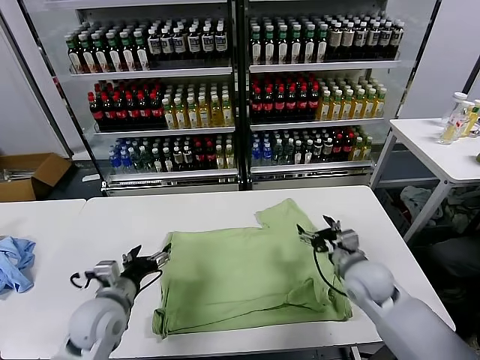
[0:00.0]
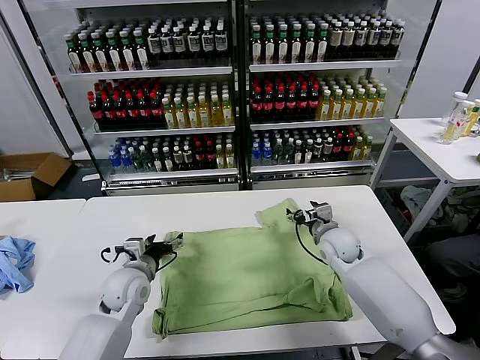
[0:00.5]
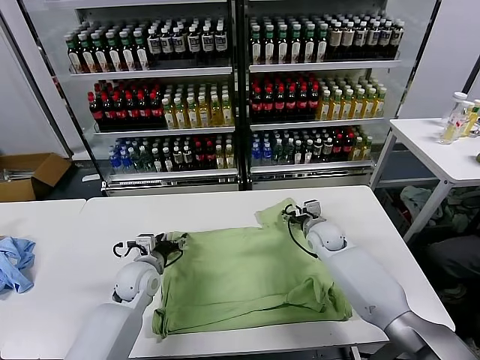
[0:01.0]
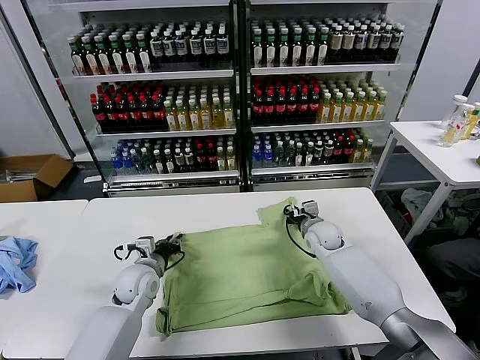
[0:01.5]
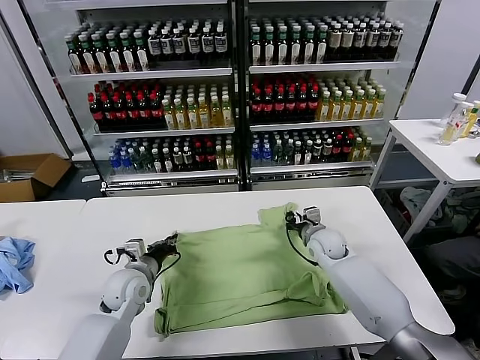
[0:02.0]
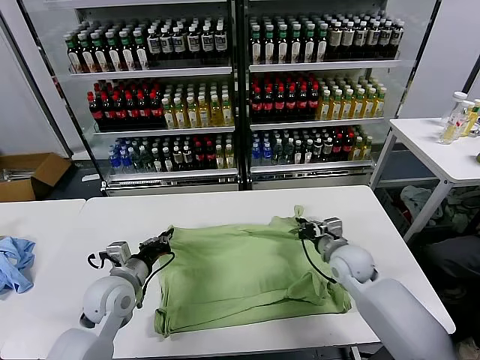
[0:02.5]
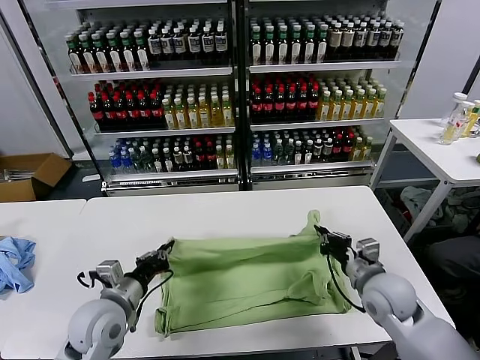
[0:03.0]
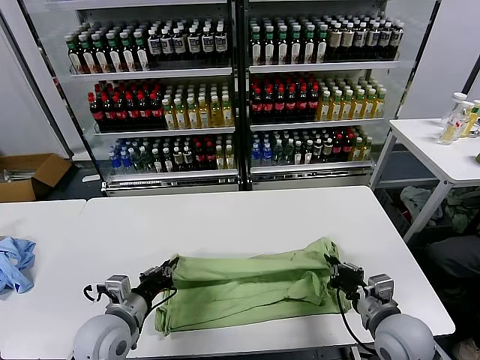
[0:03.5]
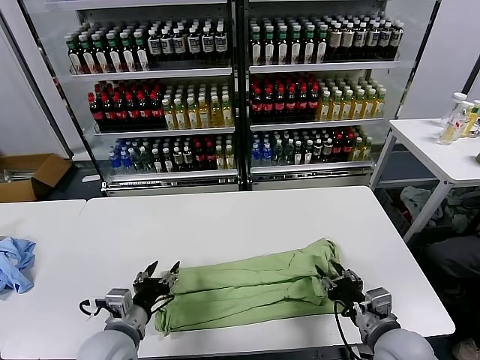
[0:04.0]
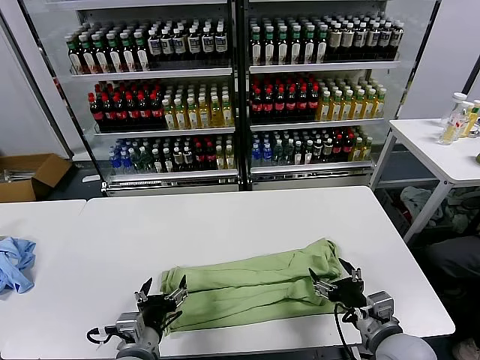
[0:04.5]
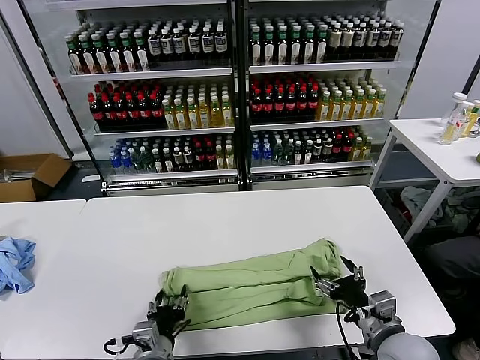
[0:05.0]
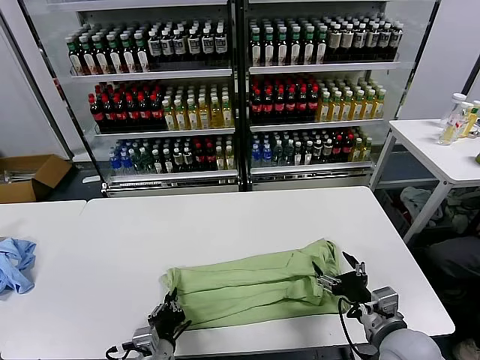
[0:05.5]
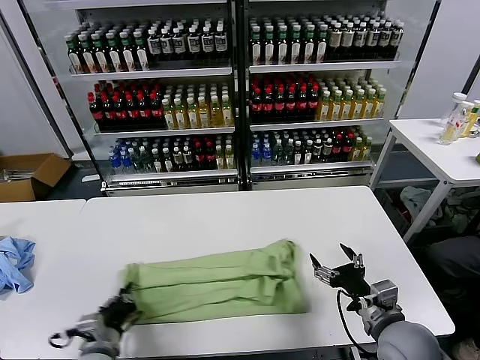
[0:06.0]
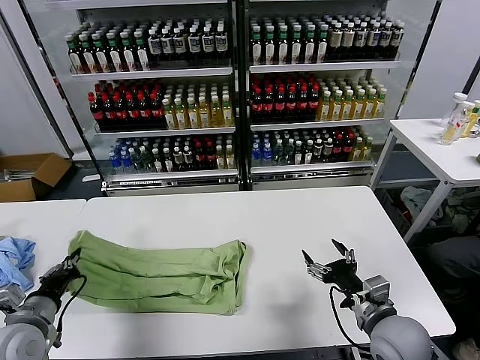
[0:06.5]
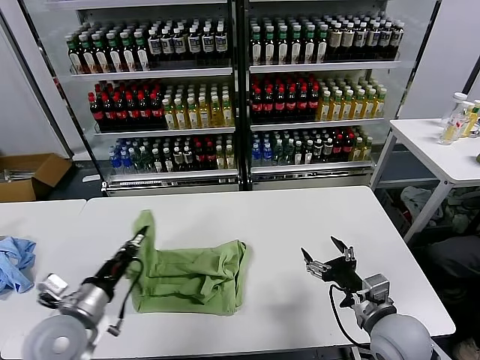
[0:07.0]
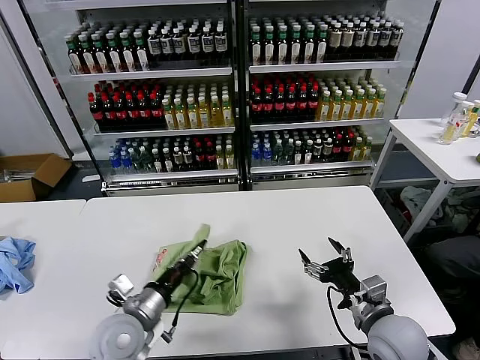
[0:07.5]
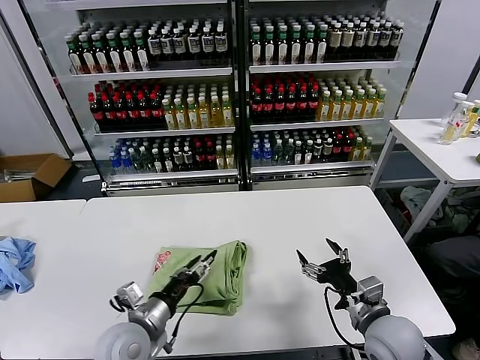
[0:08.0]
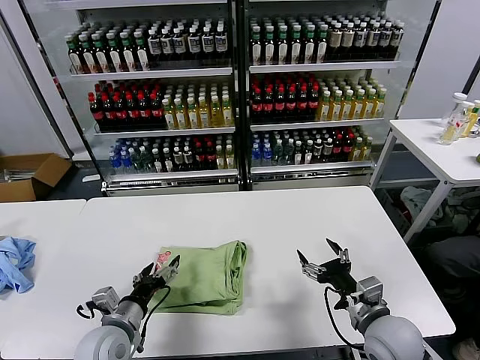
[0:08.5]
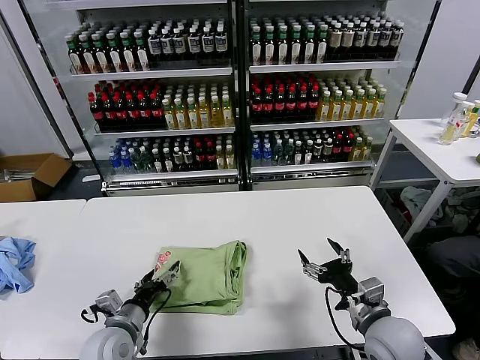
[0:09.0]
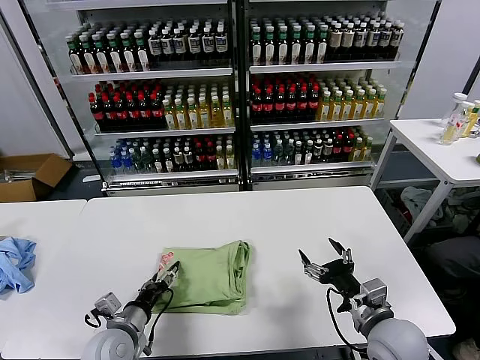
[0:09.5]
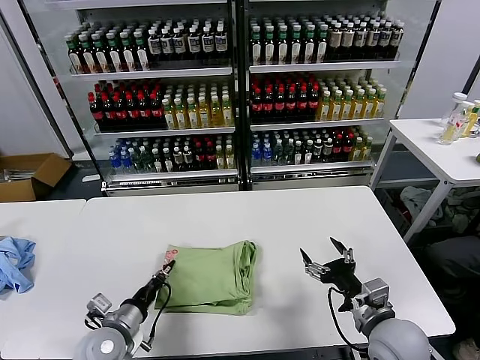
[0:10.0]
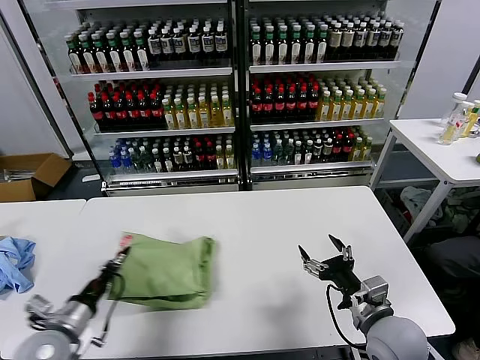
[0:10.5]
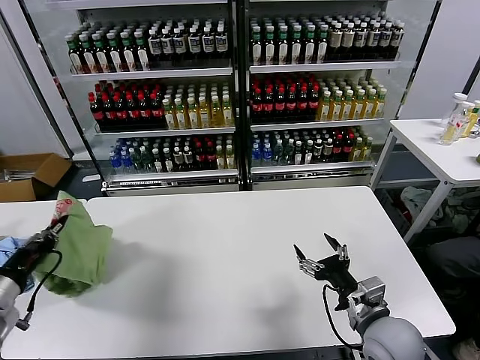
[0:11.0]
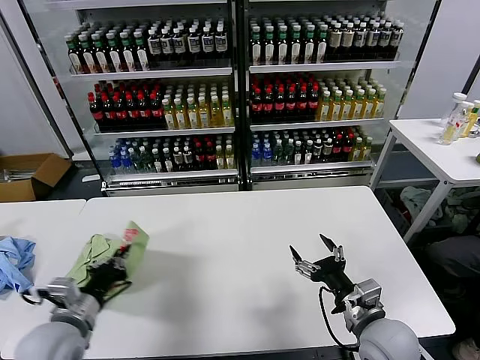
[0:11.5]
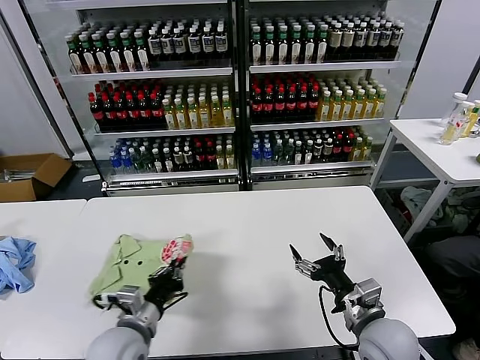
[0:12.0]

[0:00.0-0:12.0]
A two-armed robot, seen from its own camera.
Task of the whole recording: fold and organize the clothes.
Step, 0:00.0 to 0:01.5: use both grippers simultaneously to clamp the upper edge of the clothing fabric.
Step, 0:02.0 to 0:04.0: use both grippers to drag the upper edge of the fabric backward and fold it over the lower edge.
Step, 0:04.5 to 0:05.5: use the left gripper to clamp the left edge of the fabric.
Step, 0:06.0 to 0:07.5: use the left gripper to drag the left edge of the fabric to the left and folds it over the right edge.
0:00.0 to 0:02.0: The left gripper moves forward, approximately 10 cm, and closes up. Meanwhile the right gripper shifts some 10 cm forward and downward, and closes.
0:02.0 to 0:04.0: The right gripper travels backward by about 25 cm, and opens its fingers. Meanwhile the left gripper heads backward, covering approximately 15 cm, and opens its fingers.
0:04.0 to 0:06.0: The right gripper opens. The left gripper is displaced downward and to the left by roughly 5 cm, and closes.
0:06.0 to 0:08.0: The left gripper goes some 10 cm to the right and upward, and opens.
0:08.0 to 0:10.0: The left gripper goes roughly 5 cm to the left, and closes its fingers.
0:10.0 to 0:12.0: The left gripper moves upward, some 5 cm, and reaches roughly 15 cm to the left, then returns.

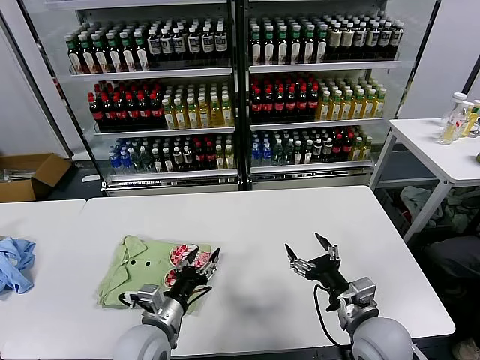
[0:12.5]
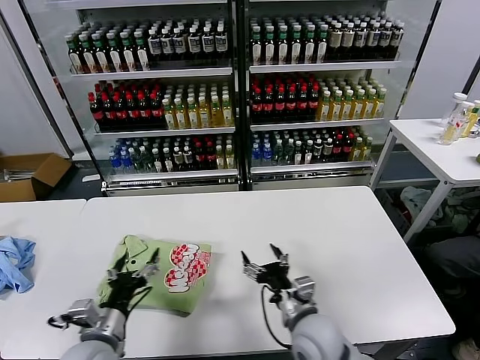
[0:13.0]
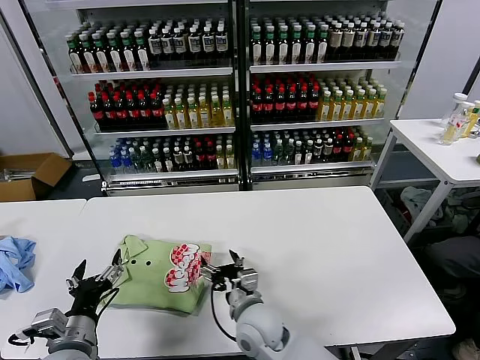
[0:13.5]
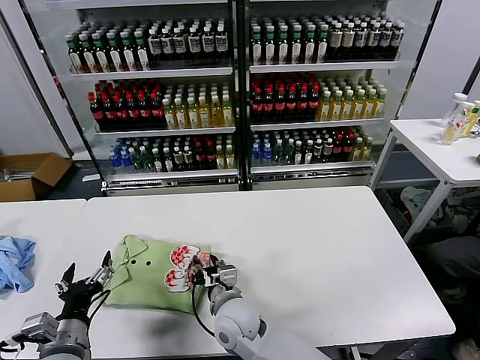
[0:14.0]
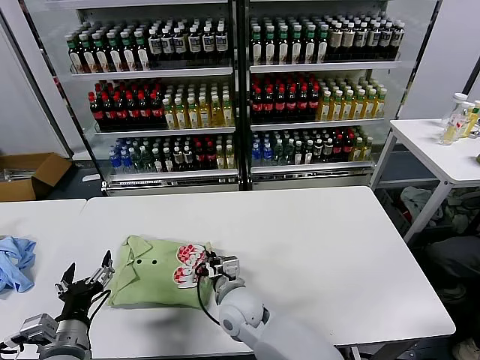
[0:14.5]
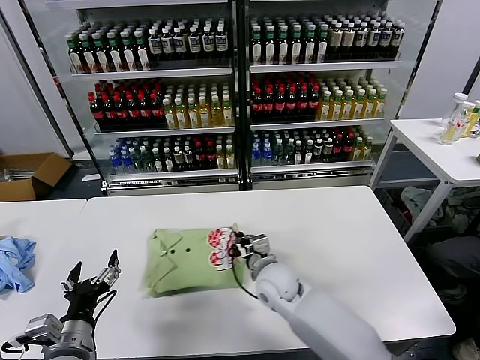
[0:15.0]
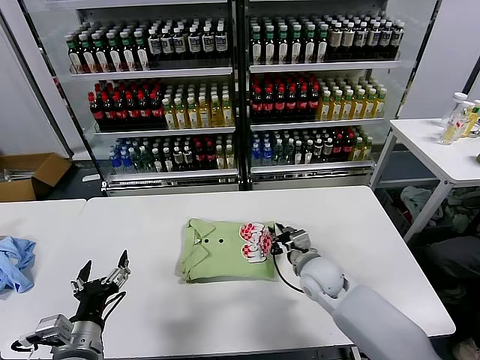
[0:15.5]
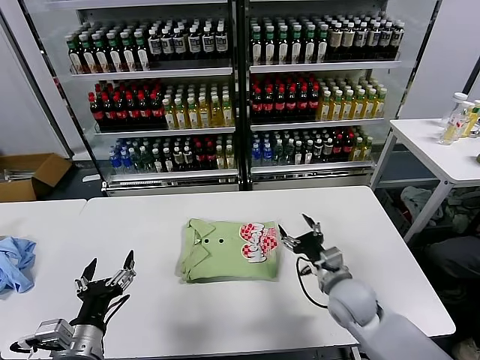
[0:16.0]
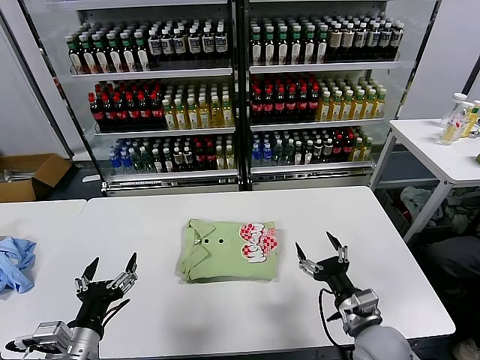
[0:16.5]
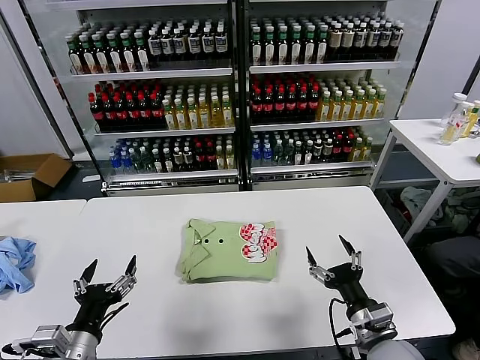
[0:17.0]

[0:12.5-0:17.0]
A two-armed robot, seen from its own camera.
Task of the whole recording: fold and organize the clothes.
Step, 0:12.5 to 0:15.5: Drag the clothes to the center of the table.
0:12.5 to 0:14.5: The right gripper shifts about 25 cm to the left, and closes. The left gripper shifts about 15 cm to the left and backward.
0:14.5 to 0:17.0: The right gripper heads to the right and backward, covering approximately 30 cm, and opens its fingers.
